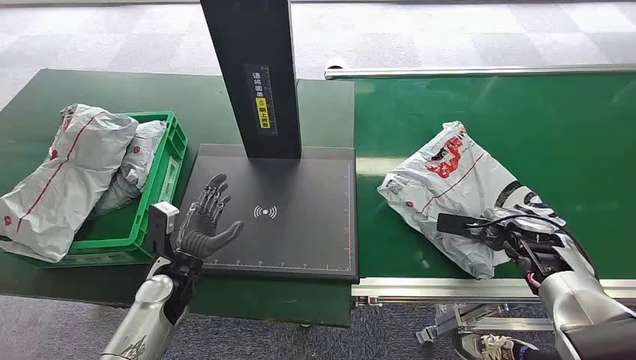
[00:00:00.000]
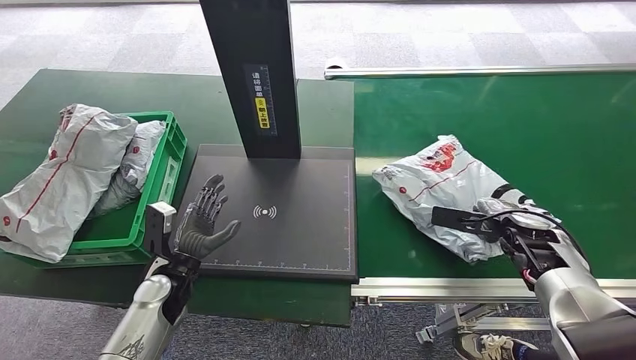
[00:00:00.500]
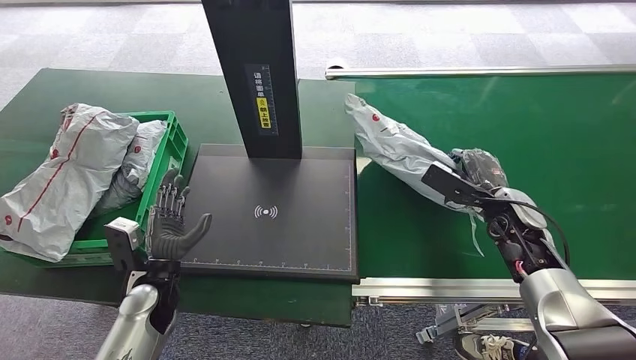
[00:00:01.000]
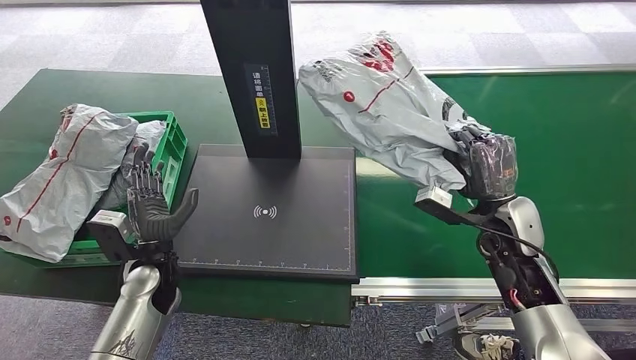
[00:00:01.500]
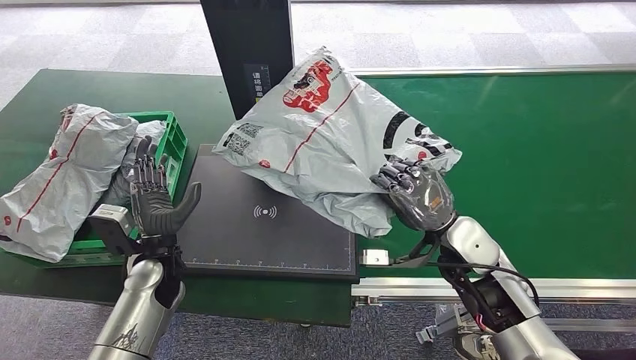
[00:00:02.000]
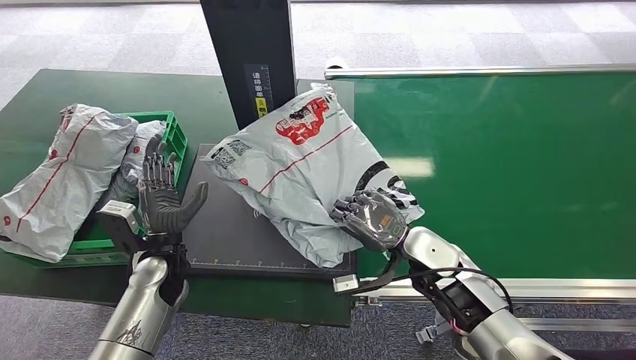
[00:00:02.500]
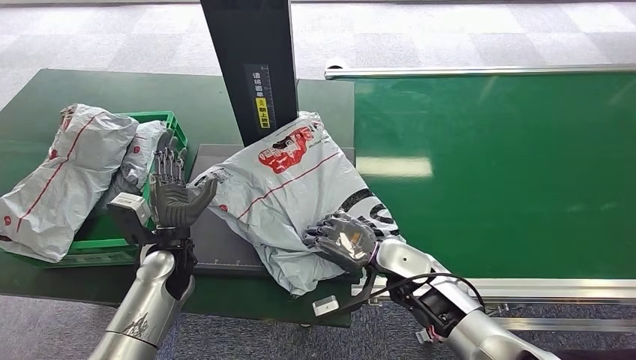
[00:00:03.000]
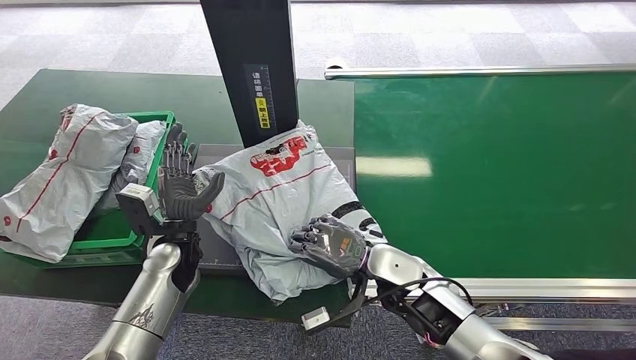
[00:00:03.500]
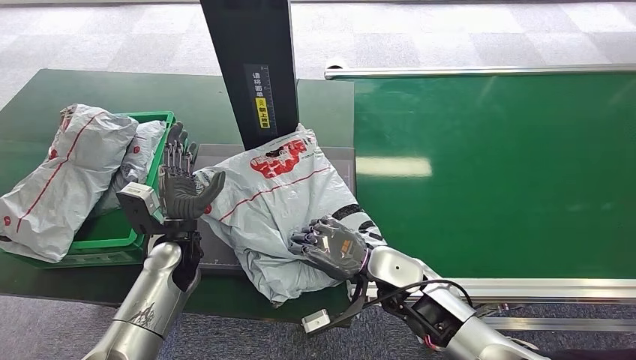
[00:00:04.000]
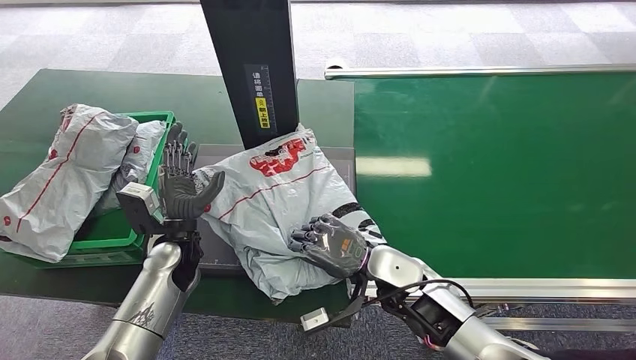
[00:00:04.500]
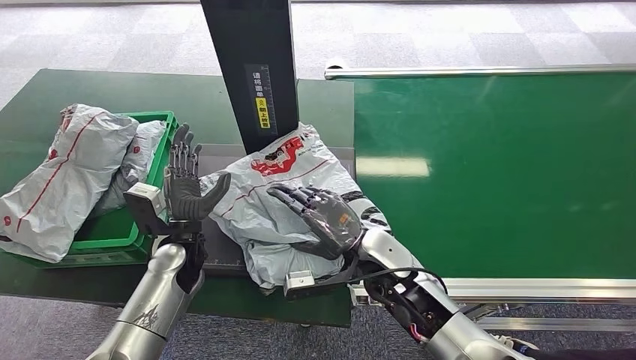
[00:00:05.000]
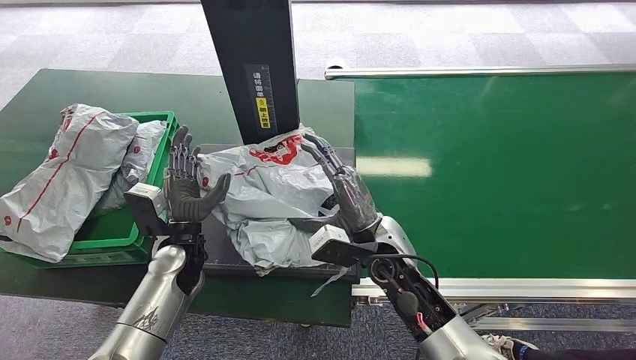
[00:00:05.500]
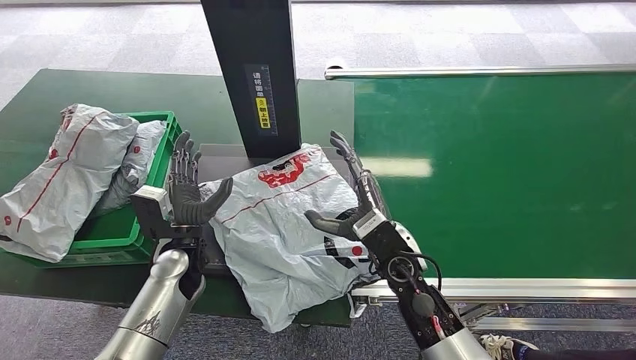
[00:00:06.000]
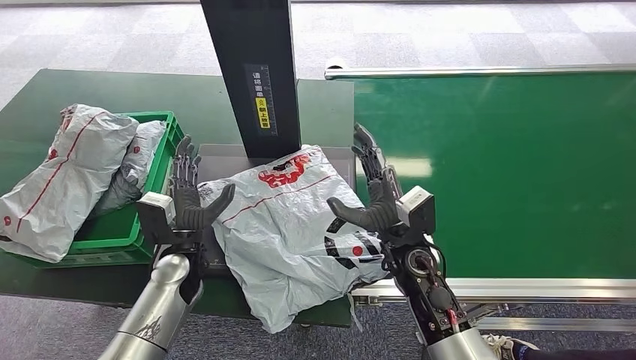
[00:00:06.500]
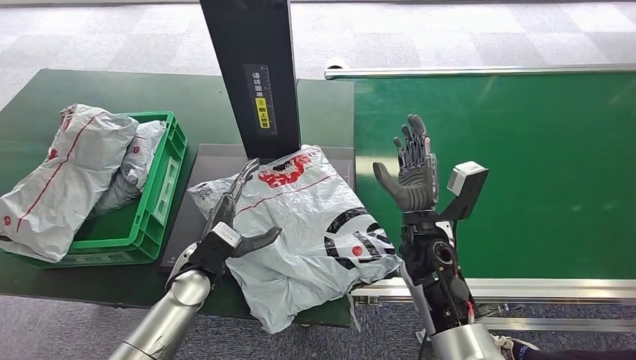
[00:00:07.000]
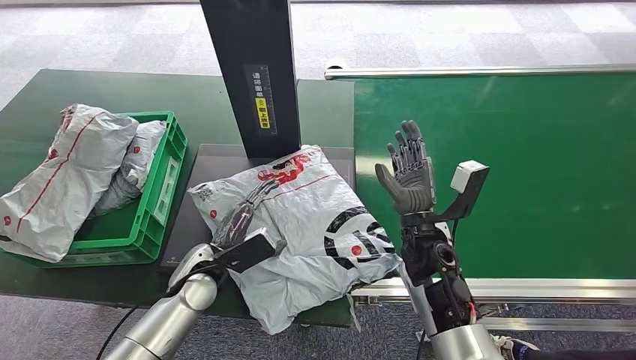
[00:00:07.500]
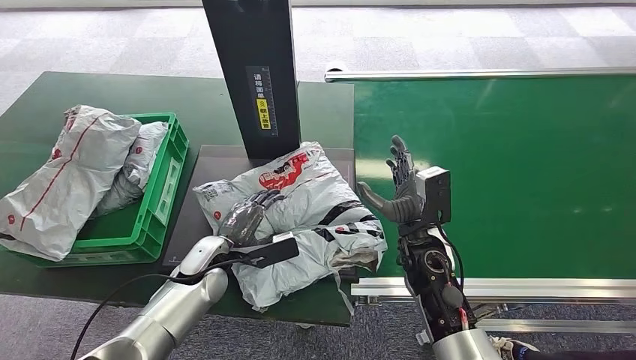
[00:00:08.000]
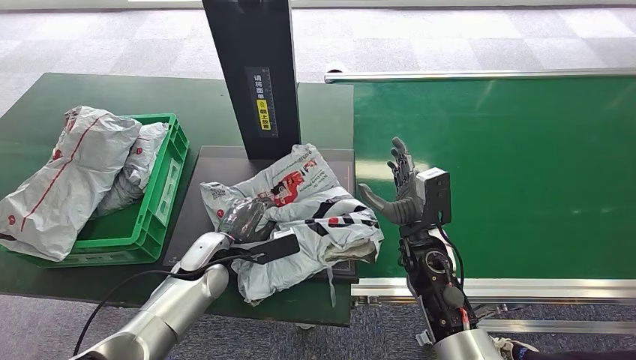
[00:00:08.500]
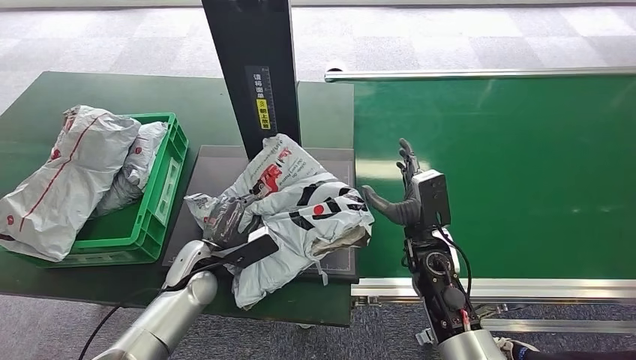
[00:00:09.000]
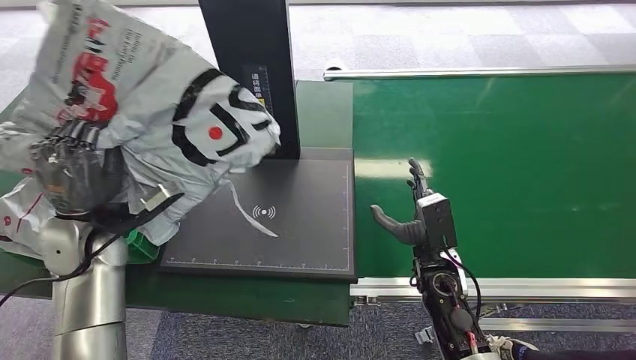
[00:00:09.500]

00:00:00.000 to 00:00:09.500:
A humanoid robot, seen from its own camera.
Step, 00:00:00.000 to 00:00:01.500: Pick up the package from the conveyor belt.
Step, 00:00:02.000 to 00:00:06.500: Place the package onto the inbound machine.
Step, 00:00:07.000 to 00:00:09.000: Pick up the package from the inbound machine.
00:00:04.000 to 00:00:05.500: The right hand shifts by some 5 cm.

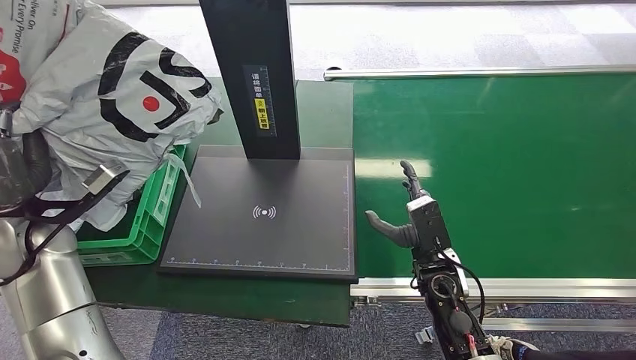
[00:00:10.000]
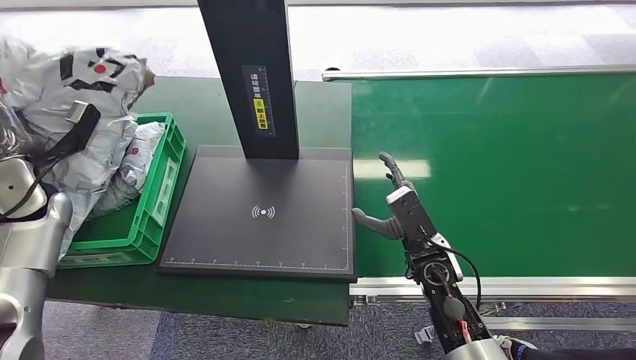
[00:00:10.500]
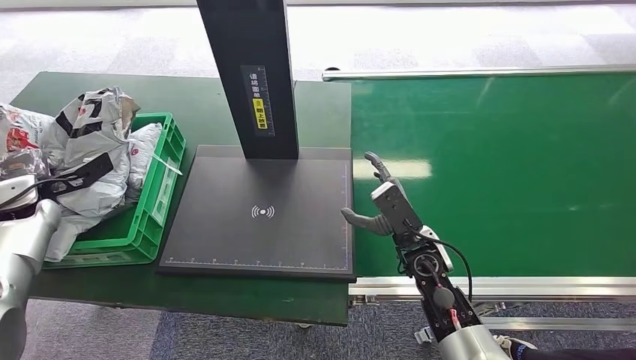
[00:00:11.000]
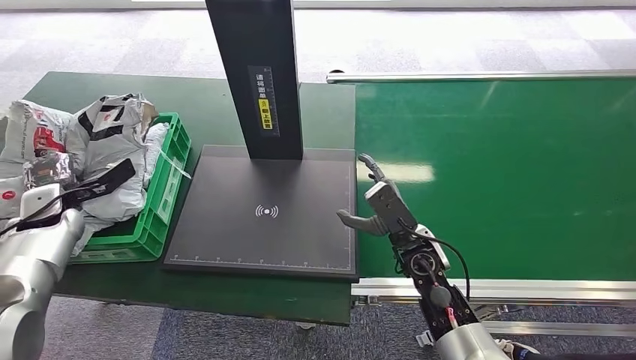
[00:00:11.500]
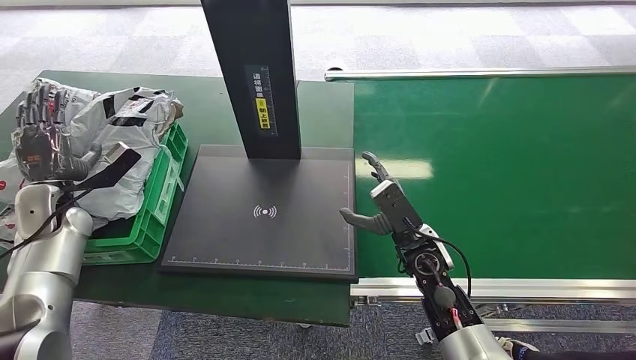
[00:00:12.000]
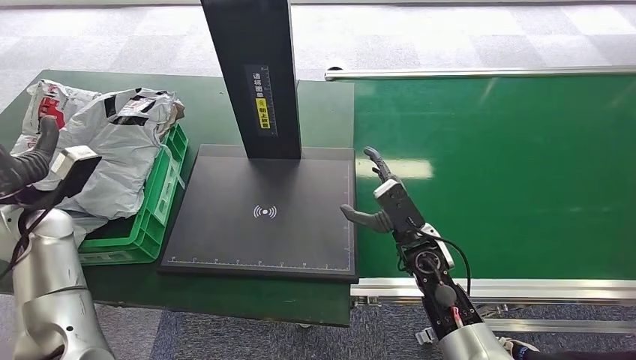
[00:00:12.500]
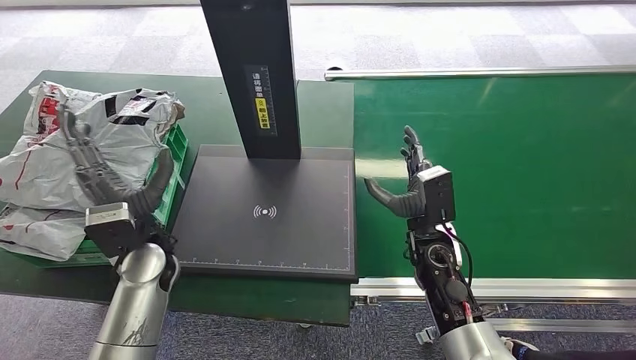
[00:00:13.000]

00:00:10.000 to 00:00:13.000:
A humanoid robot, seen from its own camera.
Step, 00:00:10.000 to 00:00:13.000: Place the package into the parcel locker.
